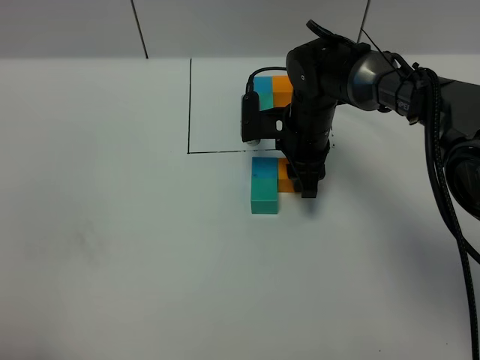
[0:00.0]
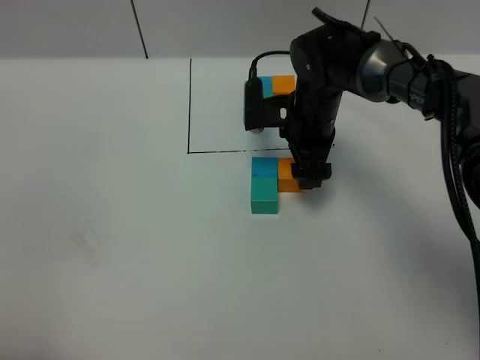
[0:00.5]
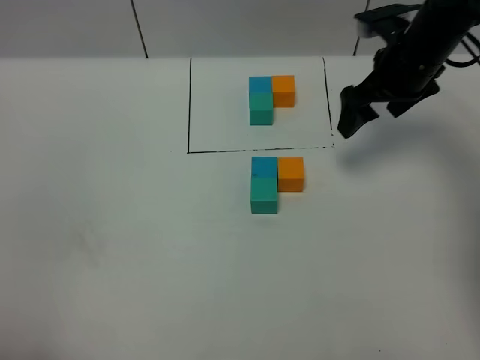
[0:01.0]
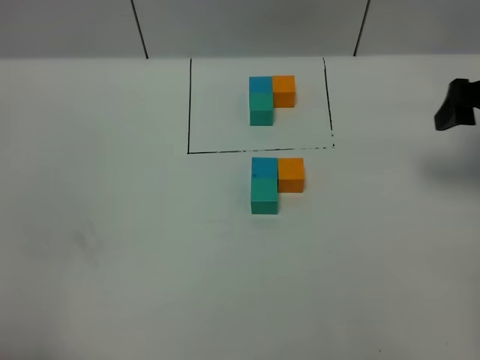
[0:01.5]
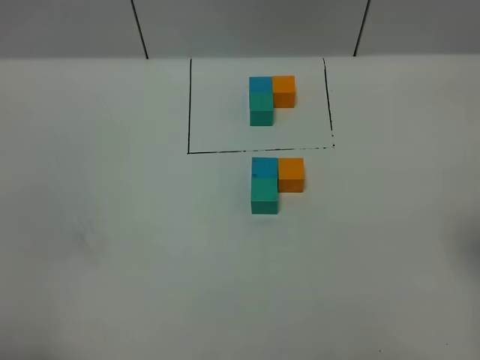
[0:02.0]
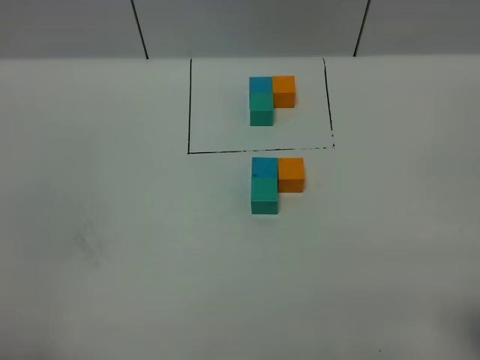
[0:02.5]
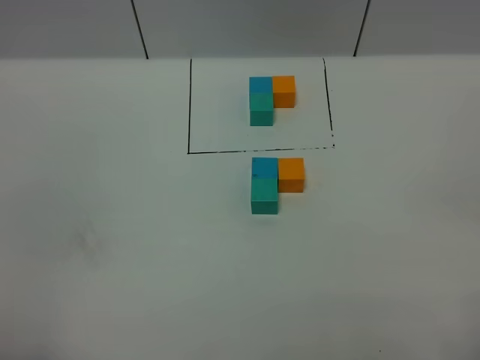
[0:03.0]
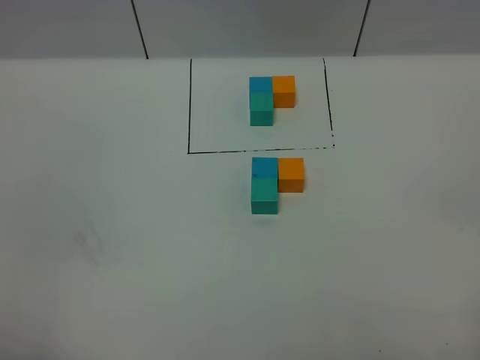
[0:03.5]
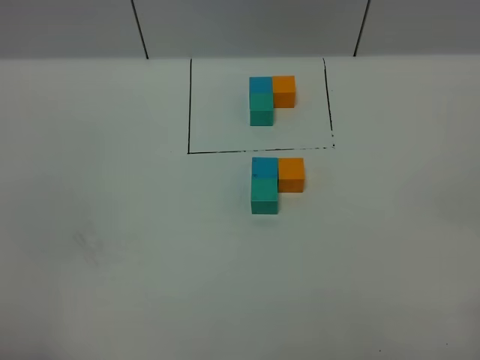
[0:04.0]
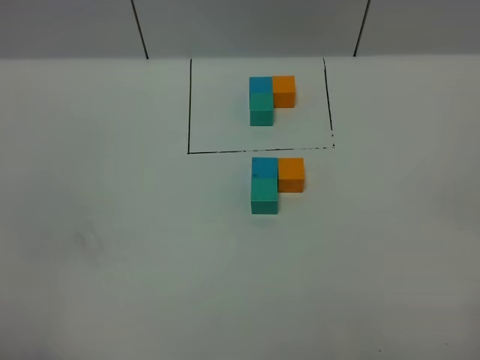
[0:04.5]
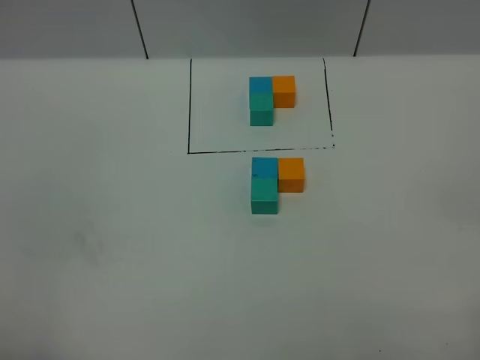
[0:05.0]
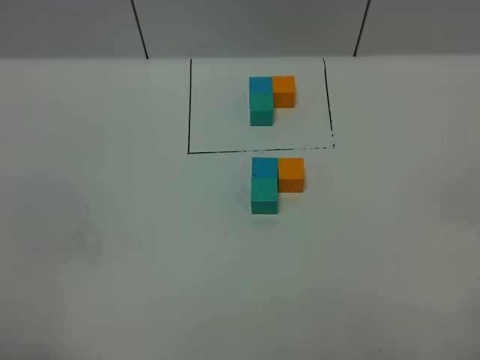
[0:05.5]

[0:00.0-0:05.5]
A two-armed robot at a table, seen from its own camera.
Task of the whole recording: According to the building block template in front, assemble the scattered blocks together.
0:00.0 to 0:02.0: The right gripper moves backward, to the right and upward, approximately 40 cm, and opens up.
